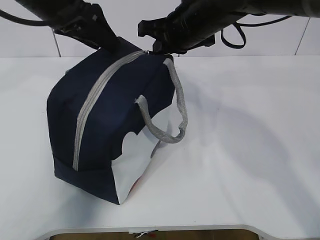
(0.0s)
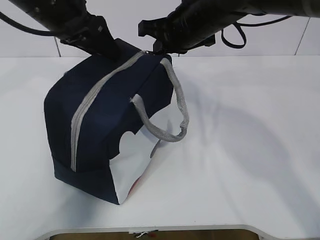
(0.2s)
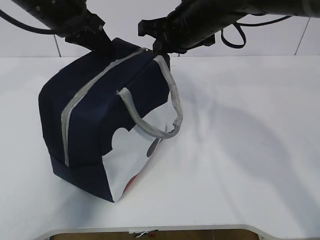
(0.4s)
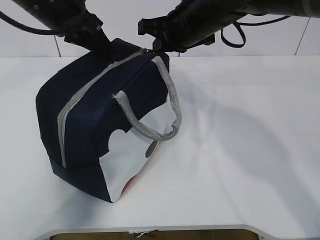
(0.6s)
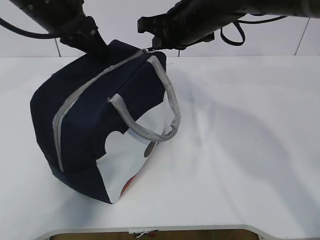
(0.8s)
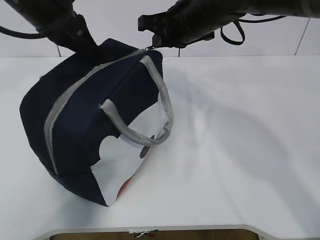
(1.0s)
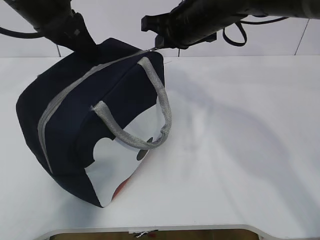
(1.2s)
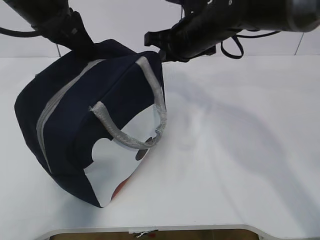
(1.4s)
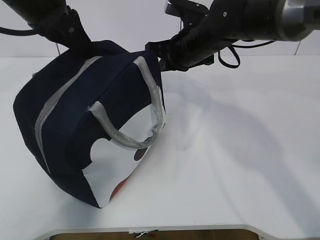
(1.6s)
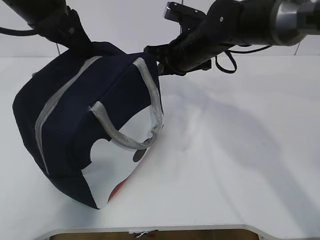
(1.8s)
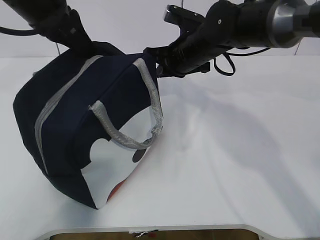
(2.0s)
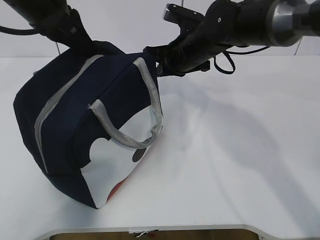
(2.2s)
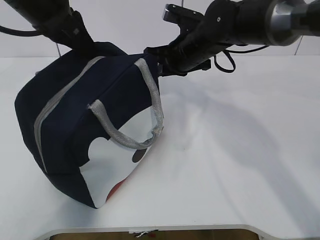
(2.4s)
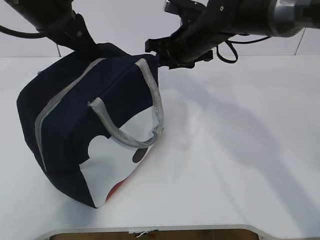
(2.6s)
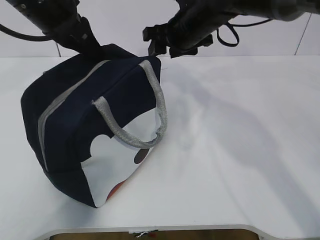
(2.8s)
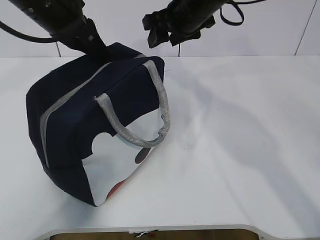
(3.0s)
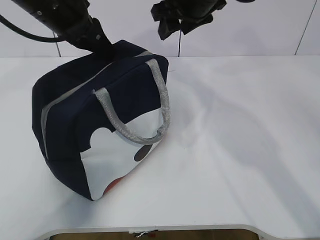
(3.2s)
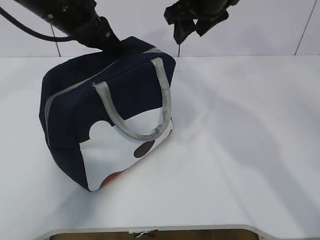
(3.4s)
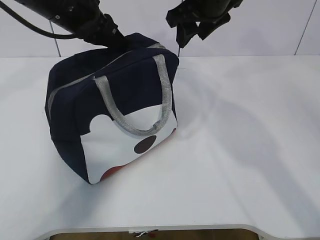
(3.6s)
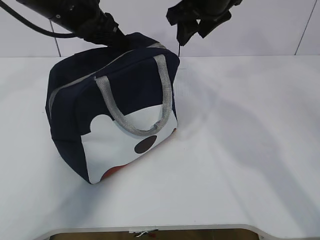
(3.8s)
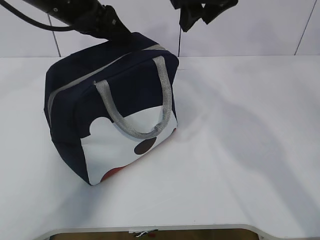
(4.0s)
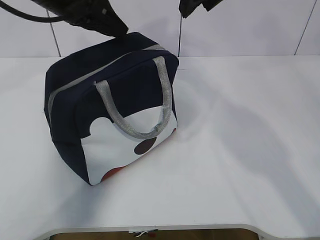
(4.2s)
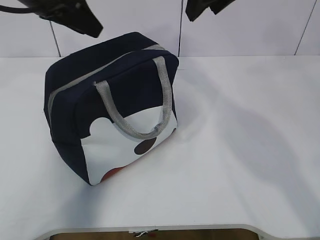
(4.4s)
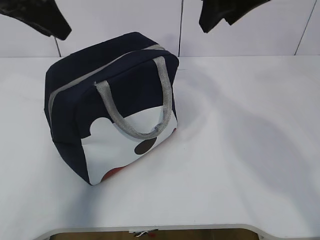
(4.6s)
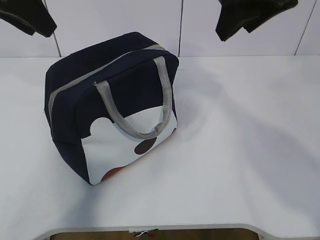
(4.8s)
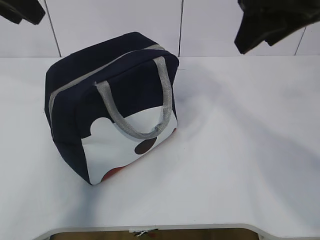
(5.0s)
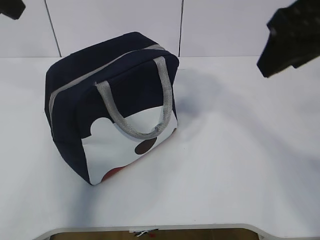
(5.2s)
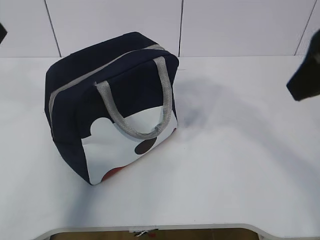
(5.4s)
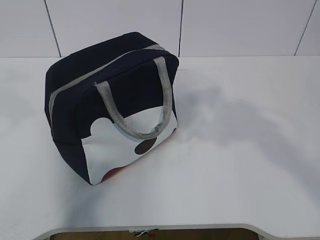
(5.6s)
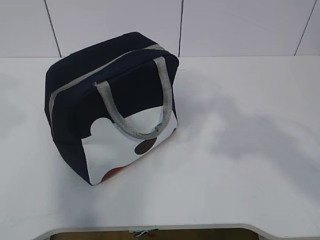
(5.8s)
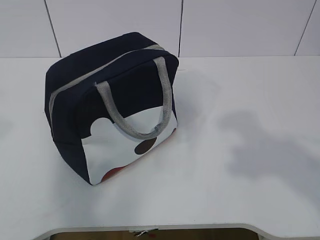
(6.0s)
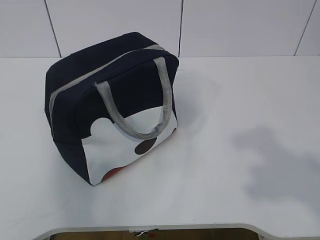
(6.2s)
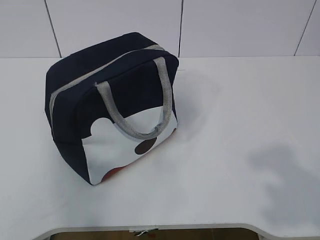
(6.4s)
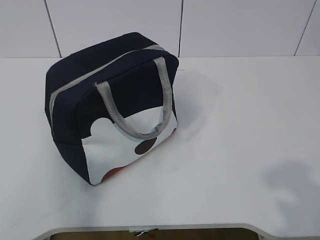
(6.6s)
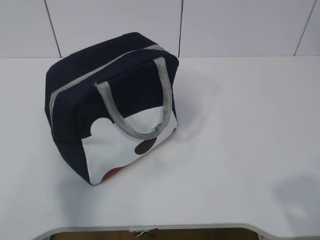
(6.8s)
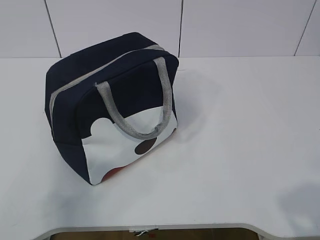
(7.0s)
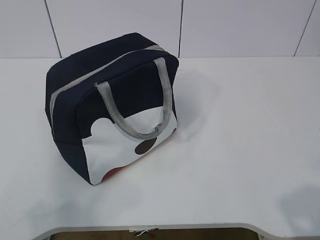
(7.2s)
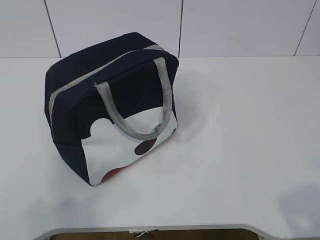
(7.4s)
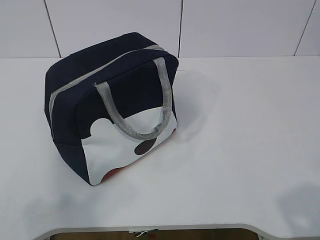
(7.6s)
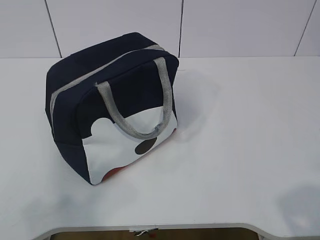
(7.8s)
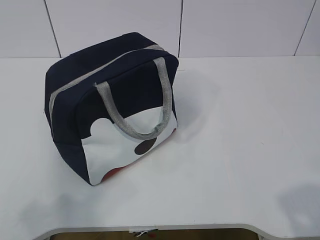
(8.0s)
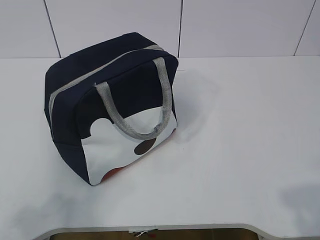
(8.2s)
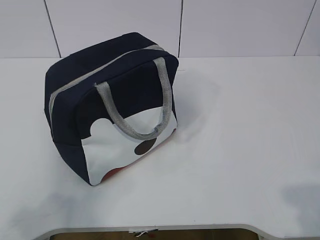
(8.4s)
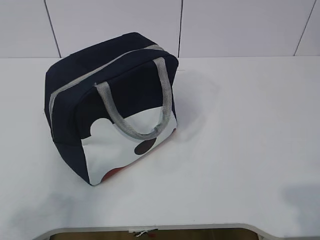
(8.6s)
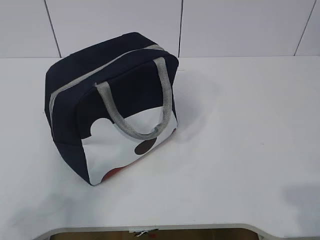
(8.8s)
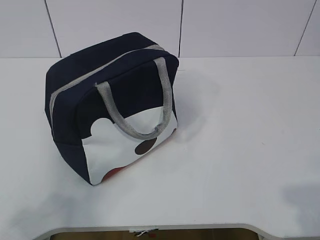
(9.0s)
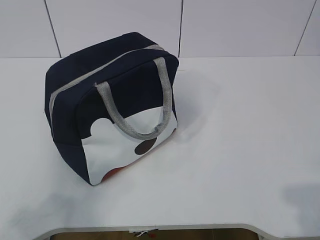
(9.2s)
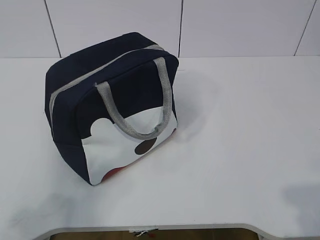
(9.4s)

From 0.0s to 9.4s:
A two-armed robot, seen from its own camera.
From 0.0s to 1.6s: The left gripper closes its fingers, while the right gripper heads downward, covering roughly 5 cm.
From 1.6s to 3.2s: The right gripper shifts some 10 cm upward, and opens up.
From 3.2s to 4.8s: The left gripper goes approximately 10 cm upward, backward and to the left, and opens up, while the right gripper moves backward, upward and to the right, approximately 15 cm.
From 4.8s to 6.2s: The right gripper goes about 30 cm backward and to the right; the left gripper moves backward, about 25 cm.
From 6.2s to 7.8s: The two grippers go approximately 15 cm downward and backward.

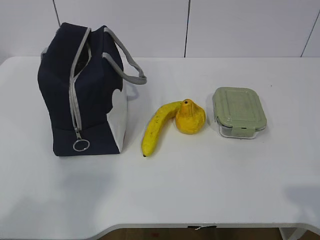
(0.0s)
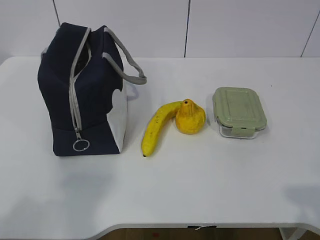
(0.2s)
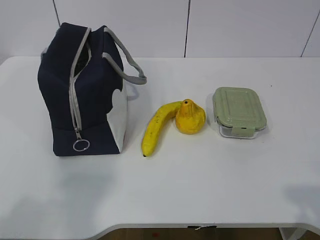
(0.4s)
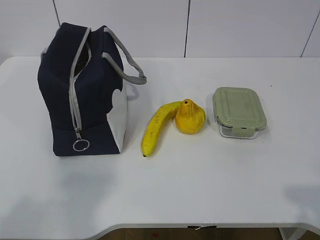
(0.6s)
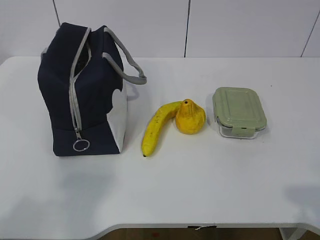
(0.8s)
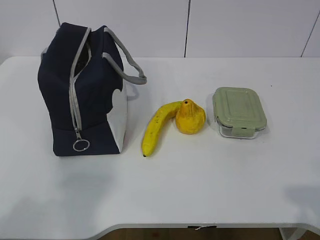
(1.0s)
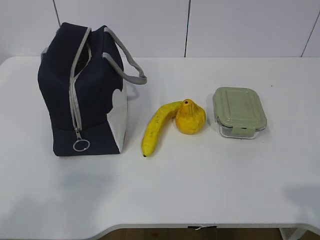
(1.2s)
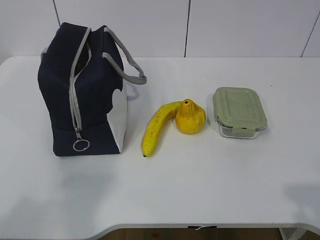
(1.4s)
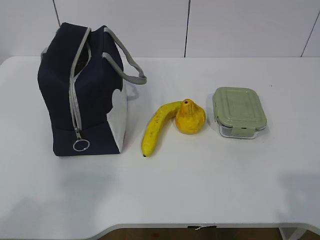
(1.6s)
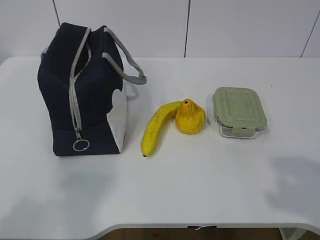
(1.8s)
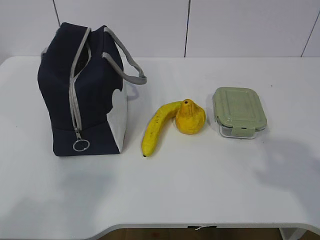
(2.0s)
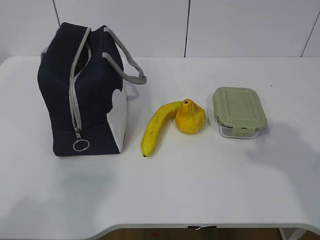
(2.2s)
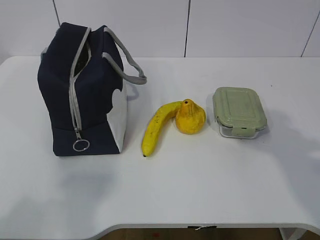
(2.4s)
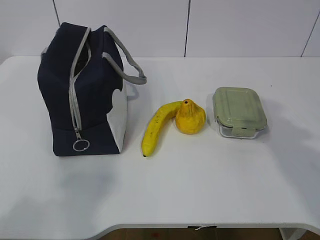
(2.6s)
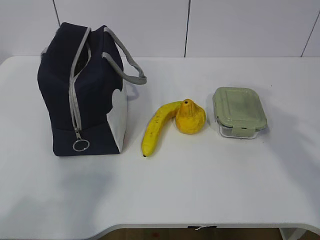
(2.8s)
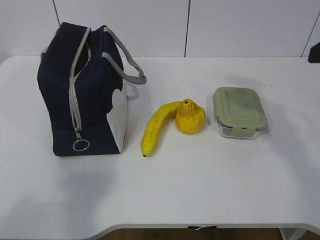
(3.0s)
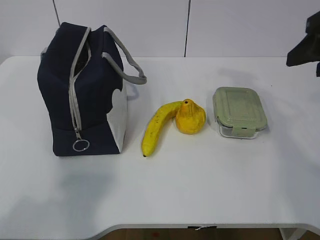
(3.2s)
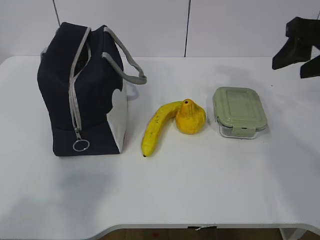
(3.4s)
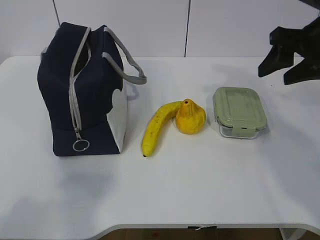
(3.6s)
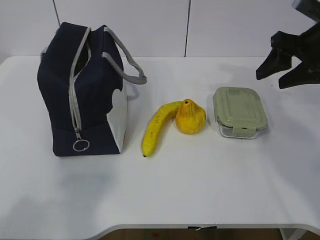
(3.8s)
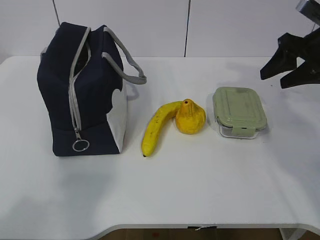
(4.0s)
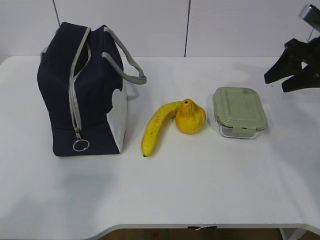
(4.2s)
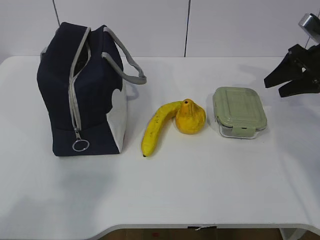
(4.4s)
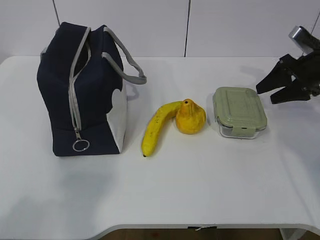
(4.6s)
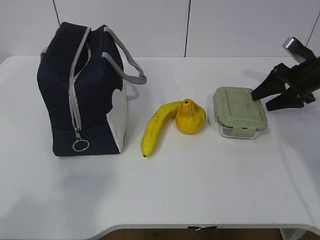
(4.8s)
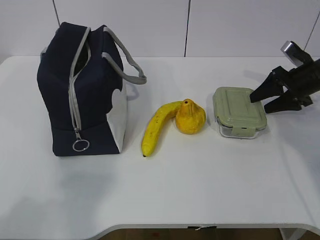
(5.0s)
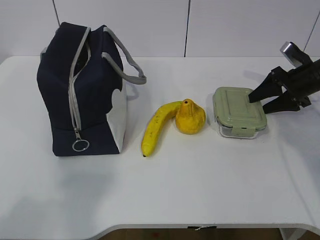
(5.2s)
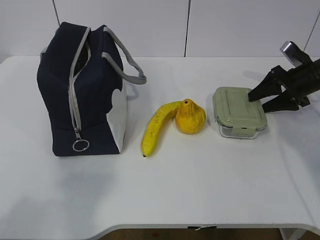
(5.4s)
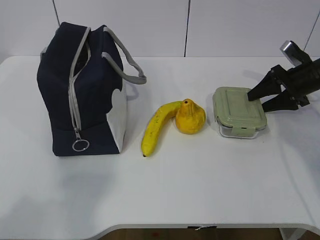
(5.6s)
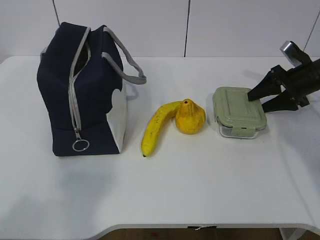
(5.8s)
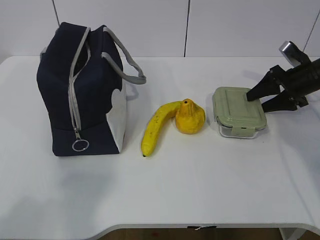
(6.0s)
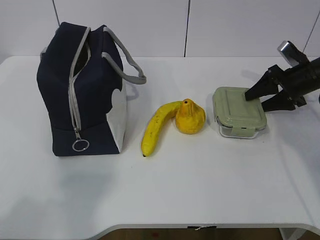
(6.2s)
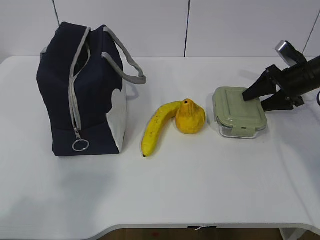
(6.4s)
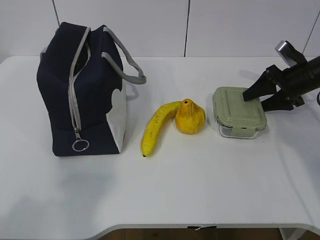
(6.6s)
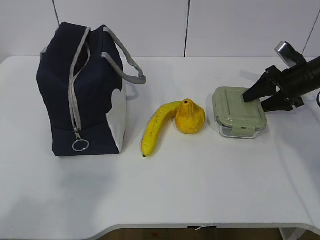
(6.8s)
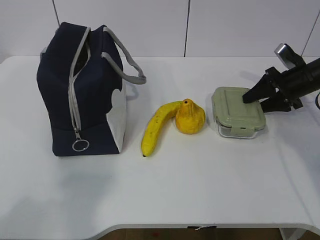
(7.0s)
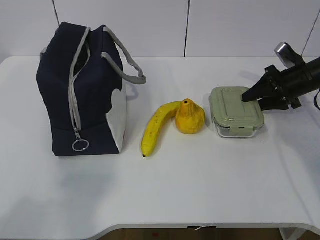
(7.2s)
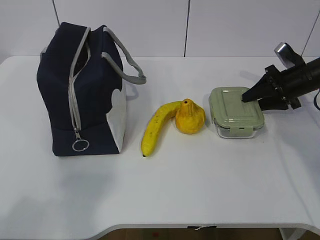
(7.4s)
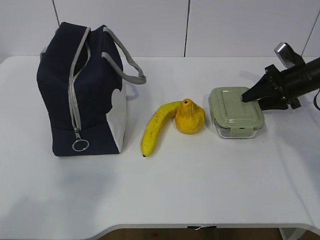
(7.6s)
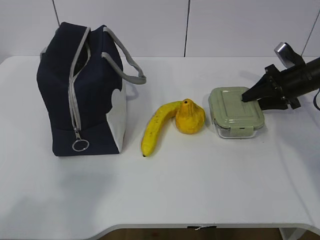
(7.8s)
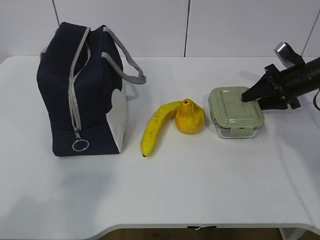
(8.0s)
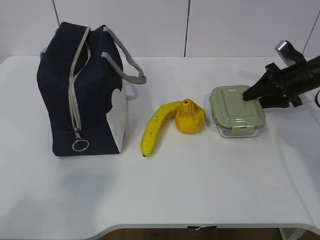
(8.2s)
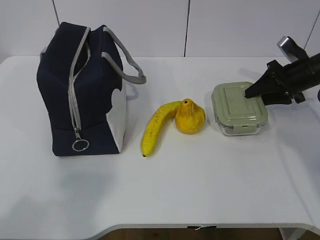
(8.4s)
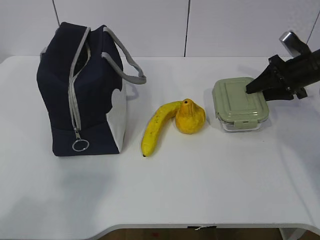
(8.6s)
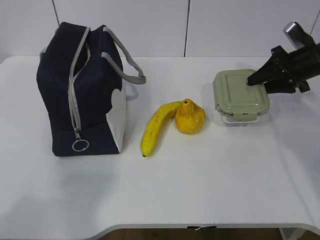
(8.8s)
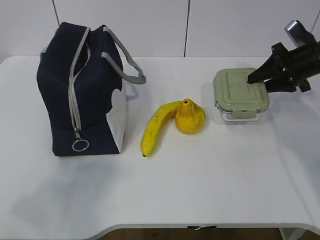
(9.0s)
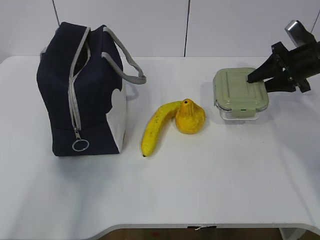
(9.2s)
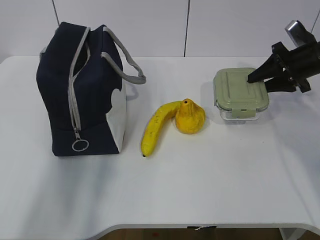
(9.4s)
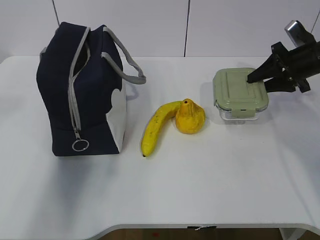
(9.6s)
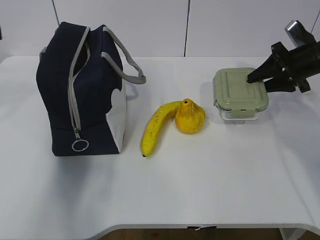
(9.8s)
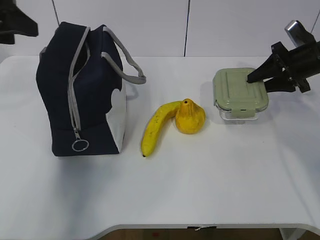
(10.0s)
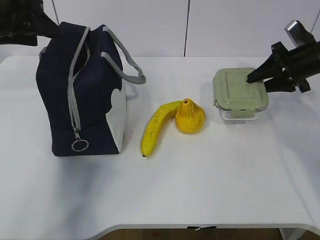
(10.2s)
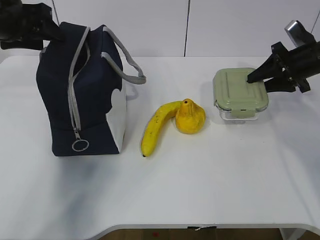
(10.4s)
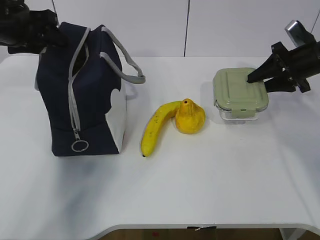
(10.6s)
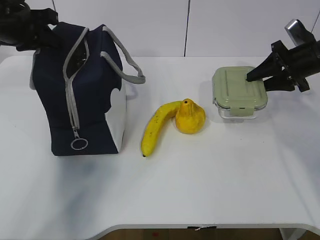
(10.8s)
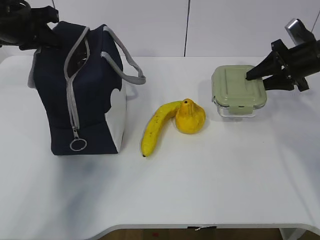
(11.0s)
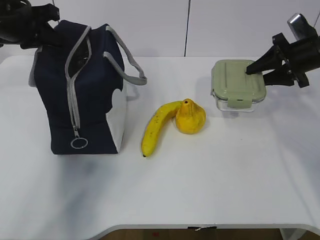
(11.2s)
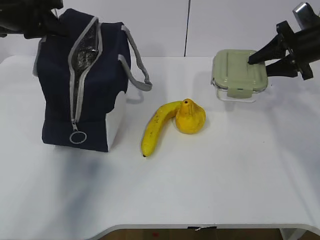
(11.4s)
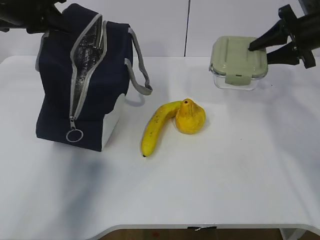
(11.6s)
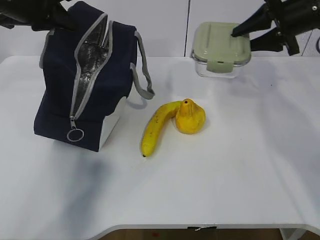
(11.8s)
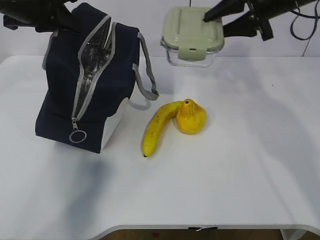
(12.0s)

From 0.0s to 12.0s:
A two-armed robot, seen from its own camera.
Step, from 0.0s to 7.4s: Grasp the box with the right gripper.
Step, from 7.6s to 10.8s: Grasp the package with the left gripper.
From 1.6s to 3.0s: The right gripper goes about 25 cm forward.
From 3.0s to 4.4s: The right gripper is displaced forward, downward and to the right by about 20 cm.
From 4.4s to 6.0s: The right gripper goes some 5 cm downward.
From 6.0s to 7.6s: The two grippers keep their place.
From 7.6s to 9.0s: The grippers stay close to where they were, moving slightly.
From 9.0s to 10.4s: The left gripper travels forward by some 35 cm.
From 10.4s to 12.0s: The right gripper heads upward and to the left, covering approximately 15 cm, while the left gripper closes.

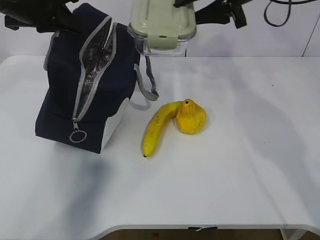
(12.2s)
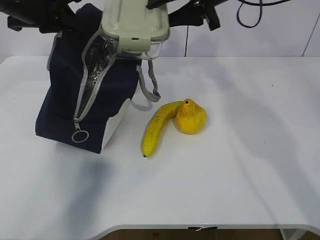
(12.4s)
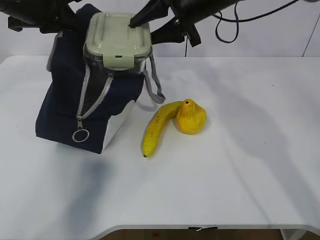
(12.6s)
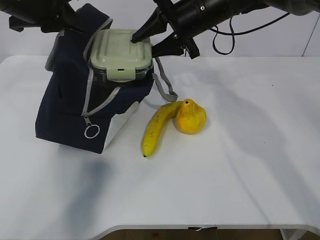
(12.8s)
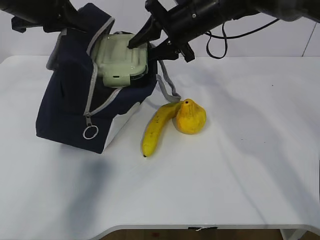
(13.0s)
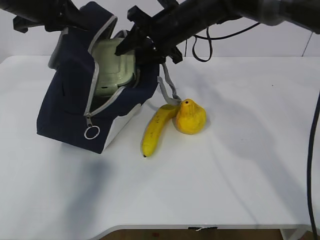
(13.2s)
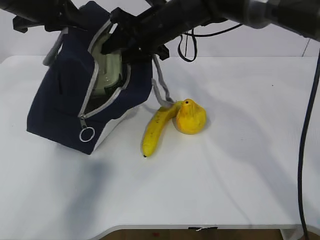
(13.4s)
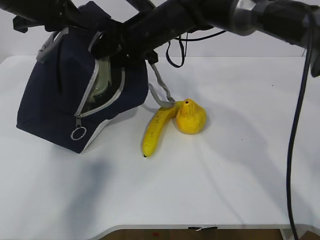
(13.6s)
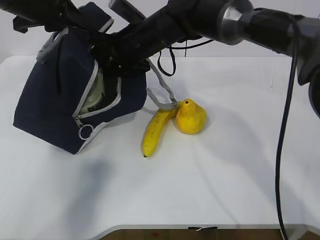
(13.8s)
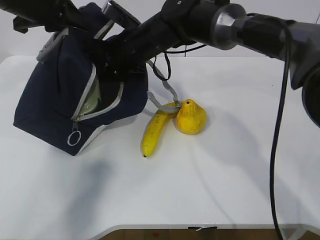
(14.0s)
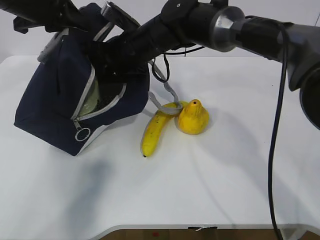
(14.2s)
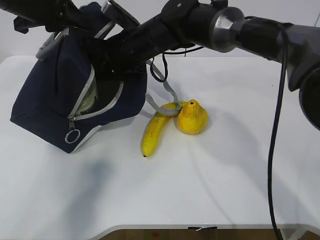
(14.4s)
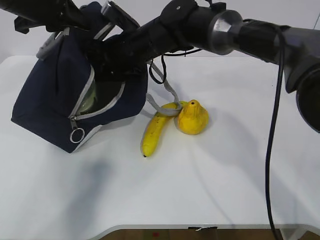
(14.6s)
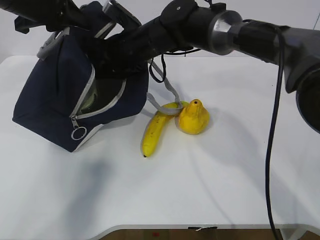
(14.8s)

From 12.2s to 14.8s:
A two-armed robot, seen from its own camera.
From 12.2s to 13.4s: The right gripper goes roughly 15 cm to the left and downward.
From 13.4s to 14.8s: The right gripper moves some 5 cm.
